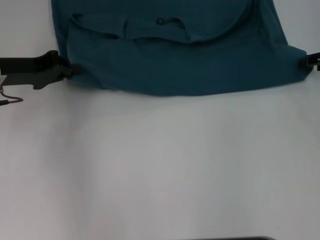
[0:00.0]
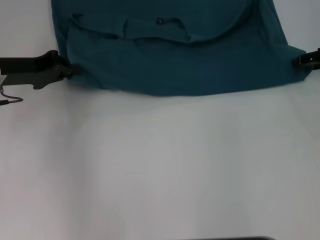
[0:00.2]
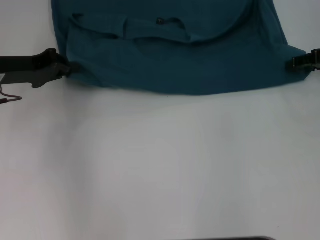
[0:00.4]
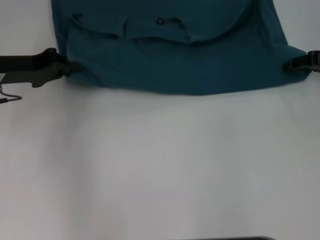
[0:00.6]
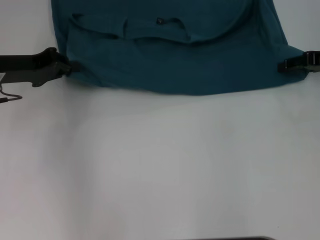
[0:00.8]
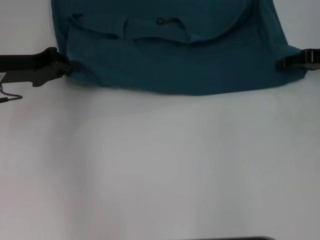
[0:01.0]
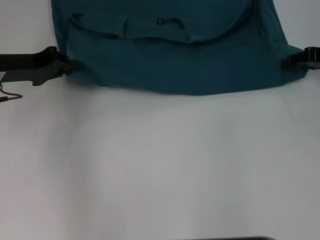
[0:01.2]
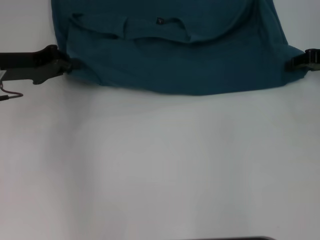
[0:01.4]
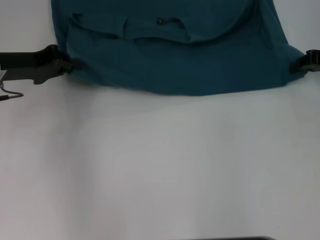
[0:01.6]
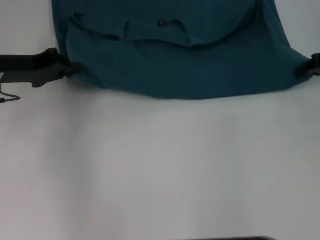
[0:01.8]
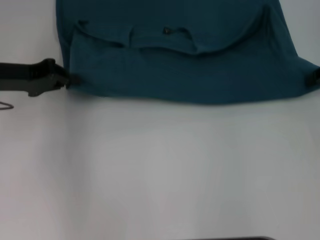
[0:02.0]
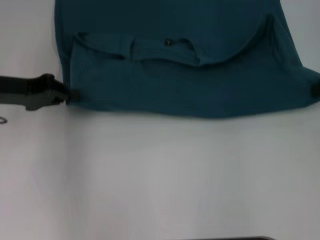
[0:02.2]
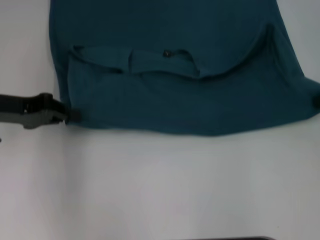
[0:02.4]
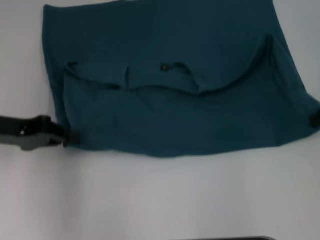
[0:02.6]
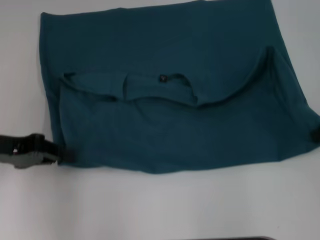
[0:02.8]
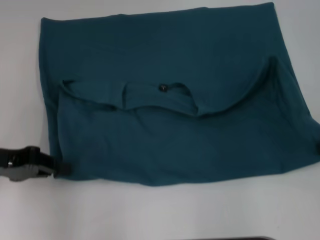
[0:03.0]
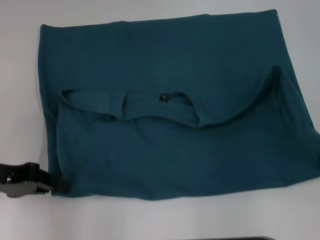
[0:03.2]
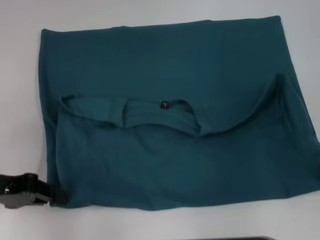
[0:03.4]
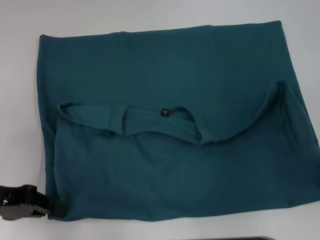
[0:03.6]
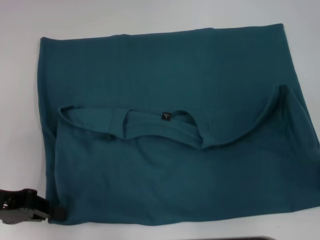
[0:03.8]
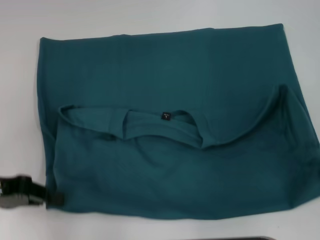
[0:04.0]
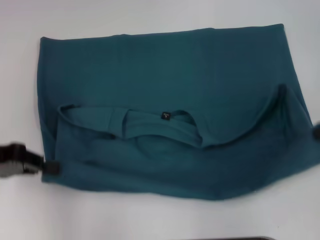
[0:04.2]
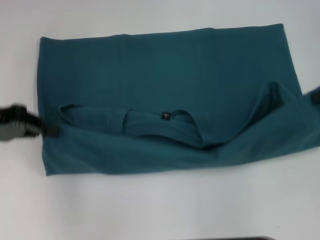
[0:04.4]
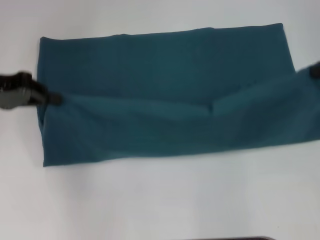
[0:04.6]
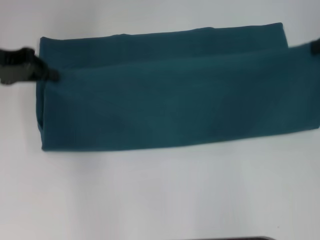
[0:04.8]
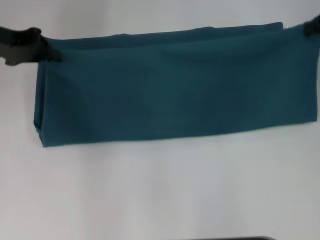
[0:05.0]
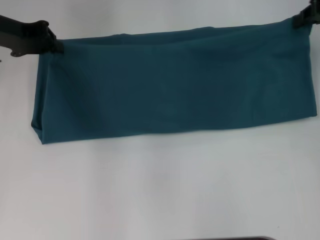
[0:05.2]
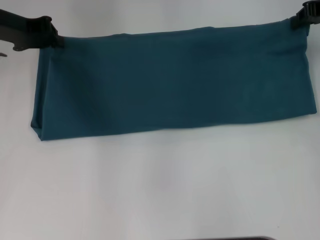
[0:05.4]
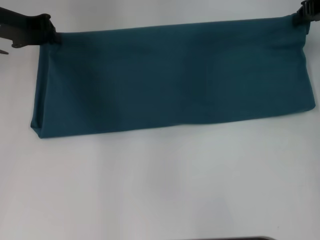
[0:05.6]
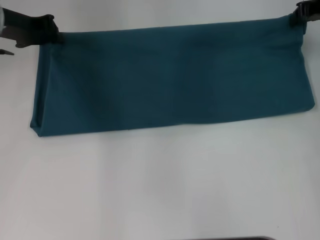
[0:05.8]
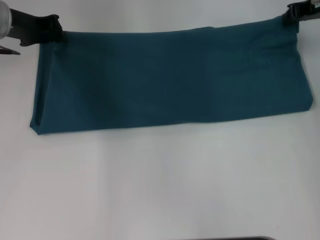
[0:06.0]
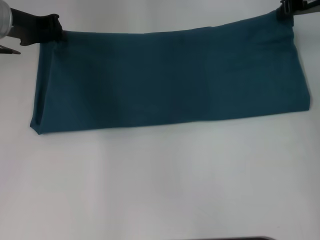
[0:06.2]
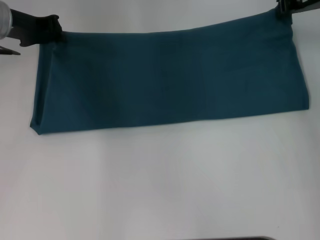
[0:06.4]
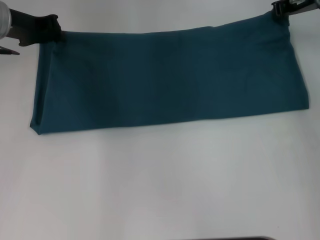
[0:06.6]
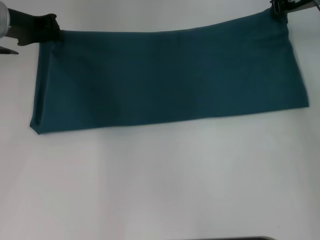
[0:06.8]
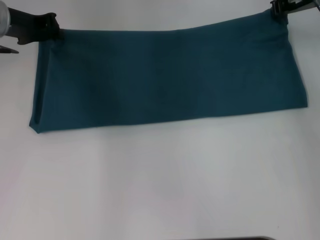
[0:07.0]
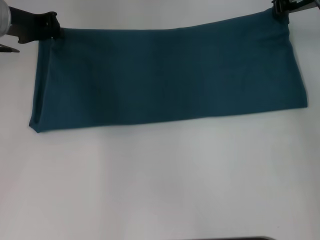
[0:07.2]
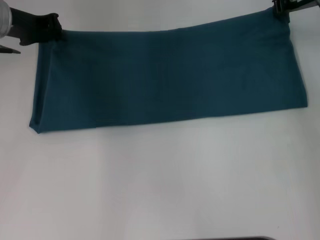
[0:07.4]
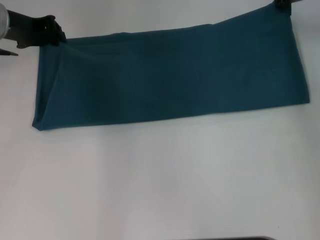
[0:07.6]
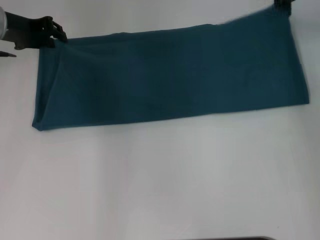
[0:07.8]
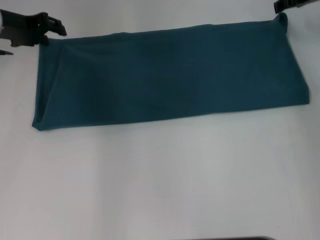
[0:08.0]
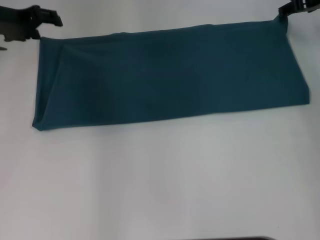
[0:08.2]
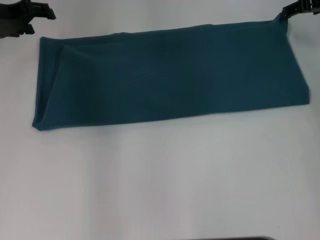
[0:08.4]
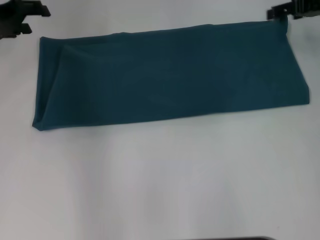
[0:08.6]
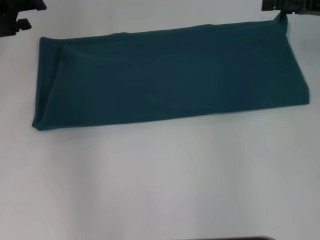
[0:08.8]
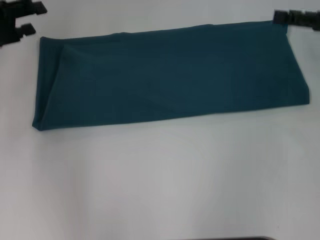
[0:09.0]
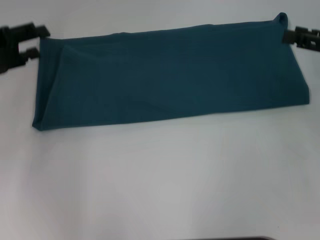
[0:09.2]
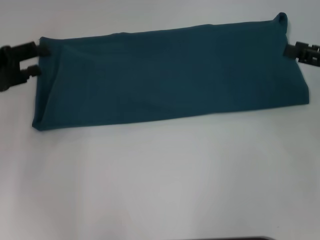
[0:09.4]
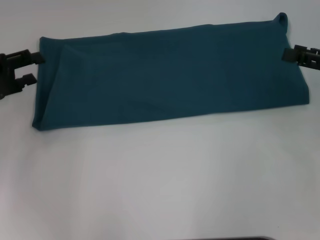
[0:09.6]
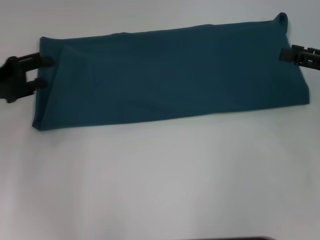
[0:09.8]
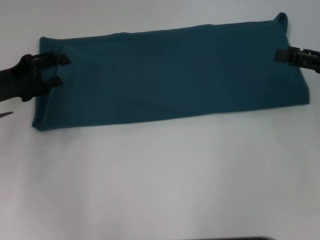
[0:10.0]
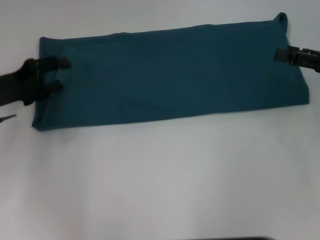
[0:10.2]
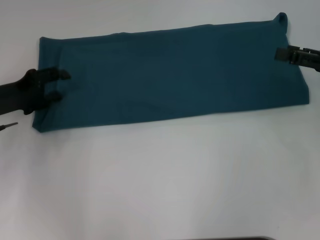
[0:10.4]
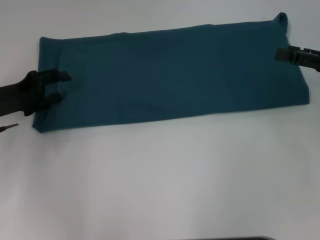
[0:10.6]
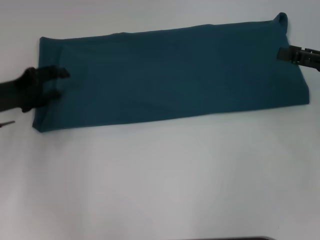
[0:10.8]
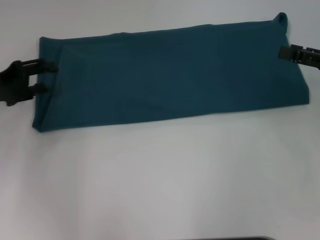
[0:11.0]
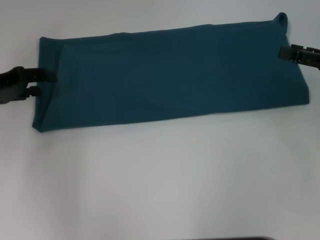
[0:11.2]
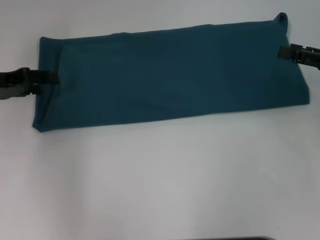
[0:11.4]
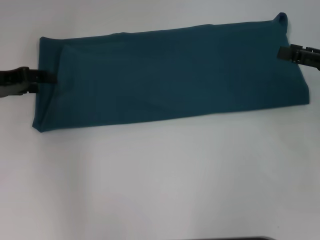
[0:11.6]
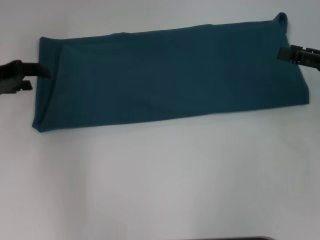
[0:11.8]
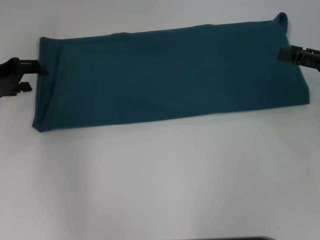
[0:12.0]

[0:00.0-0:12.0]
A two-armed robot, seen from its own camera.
Step, 0:00.0 to 0:03.8: Pull the clothes with your left hand.
Step, 0:00.0 to 0:03.8: Pull the clothes with your right hand.
Step, 0:04.0 to 0:08.6: Fold the clothes to the right.
0:00.0 to 0:01.6: There are only small adjustments of the grippers.
0:01.6 to 0:03.0: The grippers both shift backward by about 10 cm. The right gripper closes.
0:03.0 to 0:04.4: The left gripper ends up about 5 cm from where it was.
0:04.4 to 0:06.0: The right gripper is displaced forward and to the left by approximately 15 cm; the left gripper moves forward and to the right, about 15 cm.
0:06.0 to 0:07.6: There are only small adjustments of the grippers.
0:07.6 to 0:09.0: The right gripper heads backward and to the right, covering roughly 15 cm, and opens its fingers. Meanwhile the left gripper moves backward and to the left, some 10 cm, and opens up.
0:09.0 to 0:10.4: The right gripper ends up approximately 5 cm from where it was. The left gripper shifts about 10 cm downward.
0:10.4 to 0:12.0: The left gripper ends up about 5 cm from where it was.

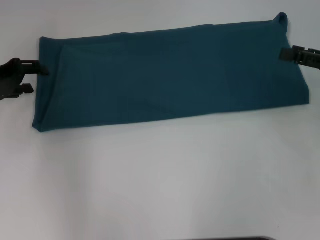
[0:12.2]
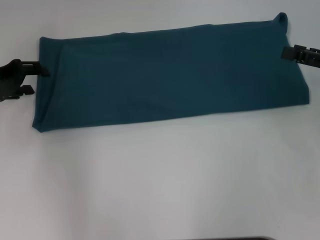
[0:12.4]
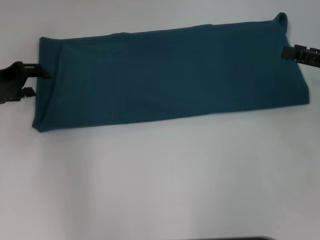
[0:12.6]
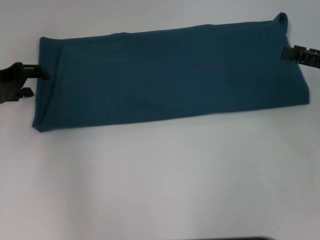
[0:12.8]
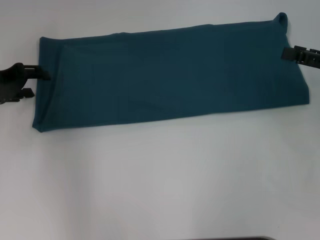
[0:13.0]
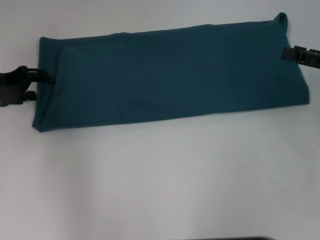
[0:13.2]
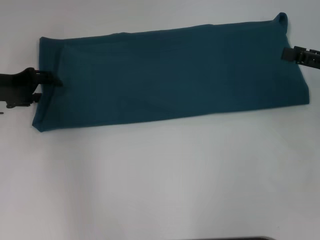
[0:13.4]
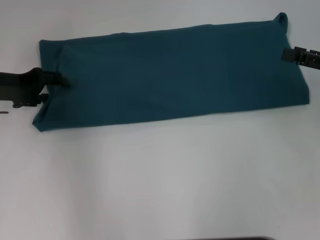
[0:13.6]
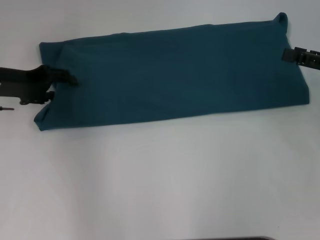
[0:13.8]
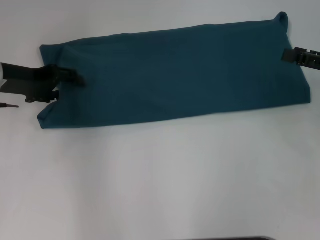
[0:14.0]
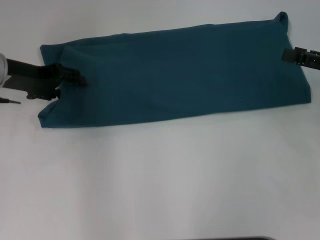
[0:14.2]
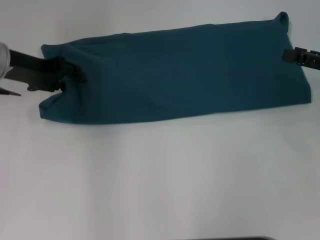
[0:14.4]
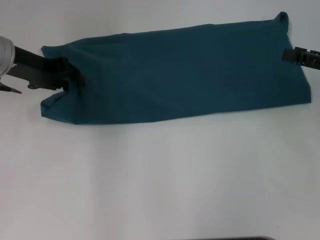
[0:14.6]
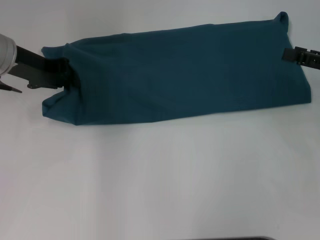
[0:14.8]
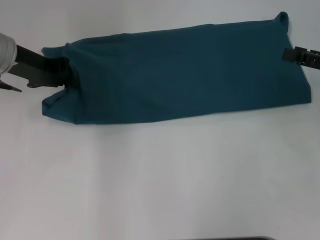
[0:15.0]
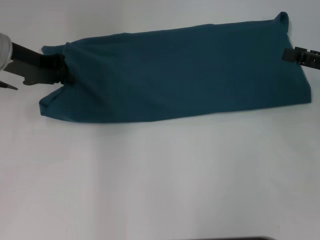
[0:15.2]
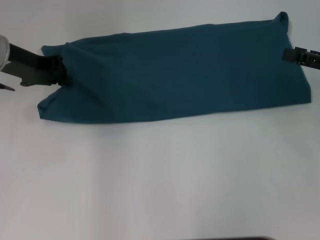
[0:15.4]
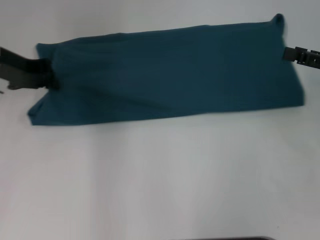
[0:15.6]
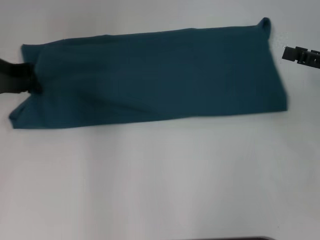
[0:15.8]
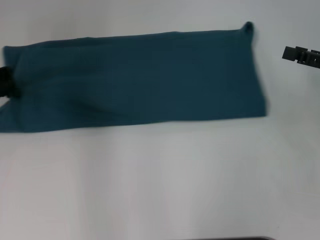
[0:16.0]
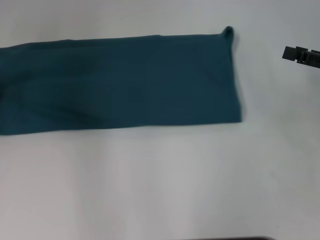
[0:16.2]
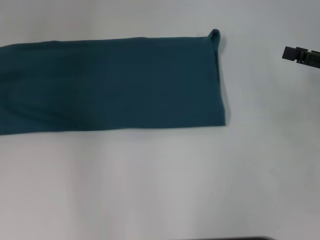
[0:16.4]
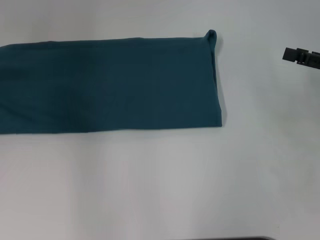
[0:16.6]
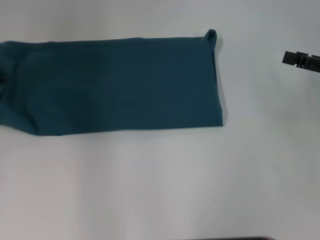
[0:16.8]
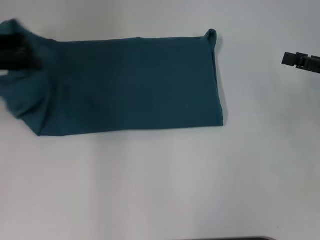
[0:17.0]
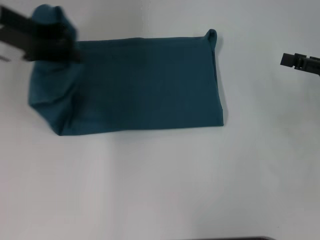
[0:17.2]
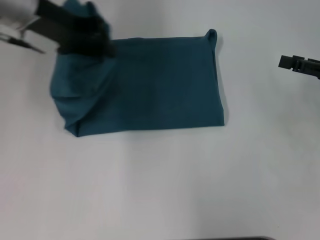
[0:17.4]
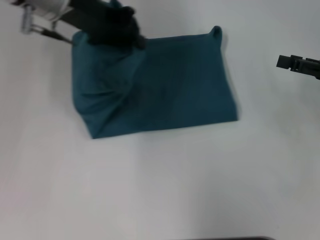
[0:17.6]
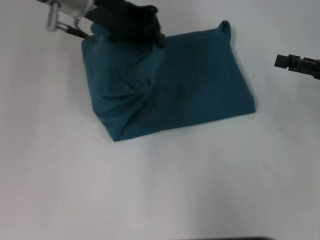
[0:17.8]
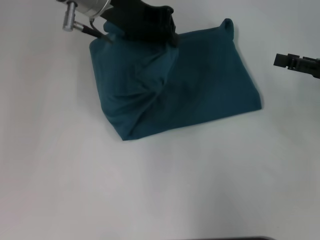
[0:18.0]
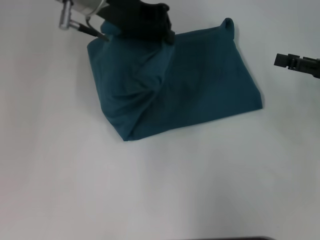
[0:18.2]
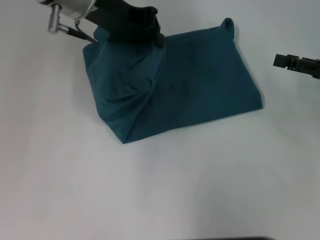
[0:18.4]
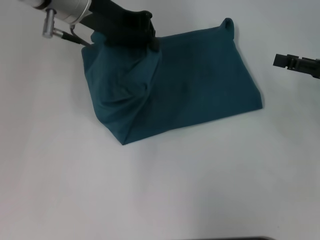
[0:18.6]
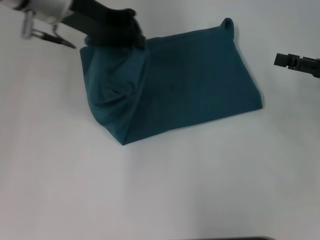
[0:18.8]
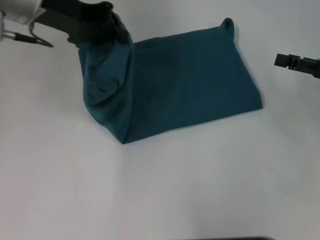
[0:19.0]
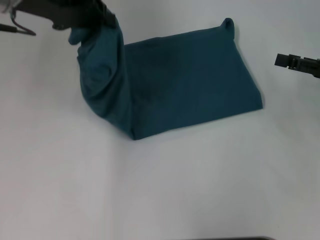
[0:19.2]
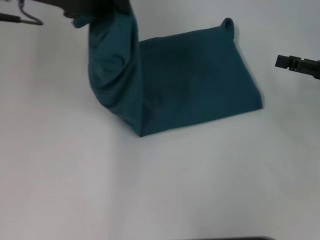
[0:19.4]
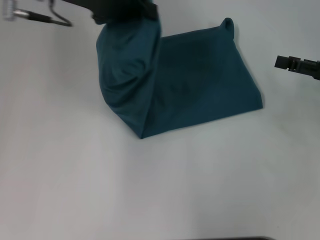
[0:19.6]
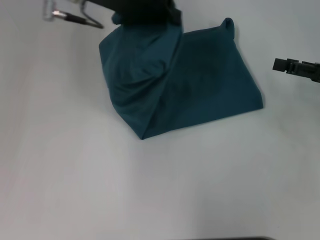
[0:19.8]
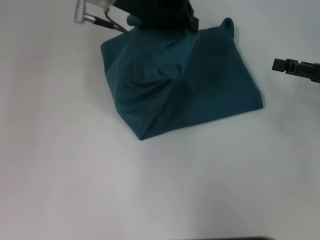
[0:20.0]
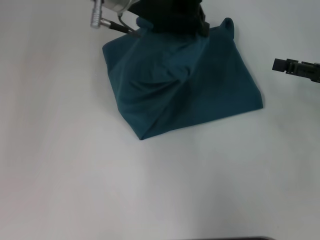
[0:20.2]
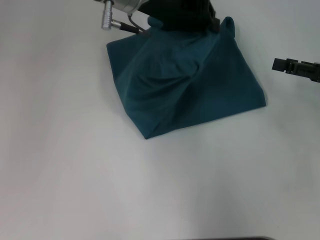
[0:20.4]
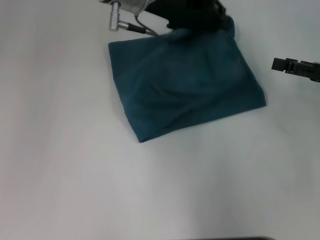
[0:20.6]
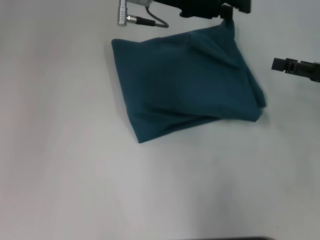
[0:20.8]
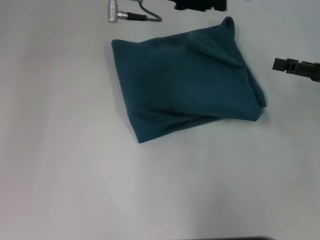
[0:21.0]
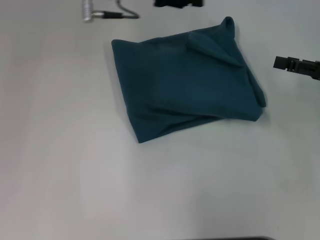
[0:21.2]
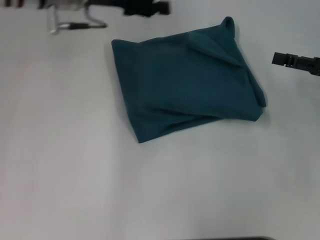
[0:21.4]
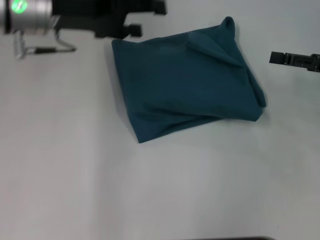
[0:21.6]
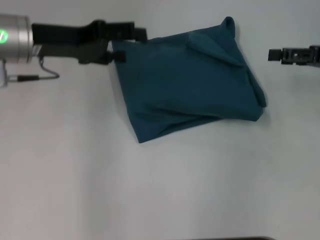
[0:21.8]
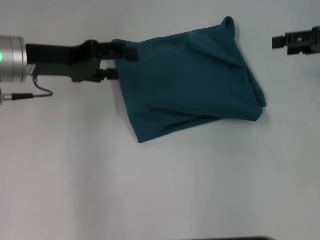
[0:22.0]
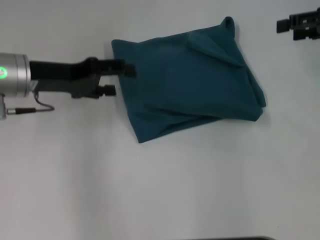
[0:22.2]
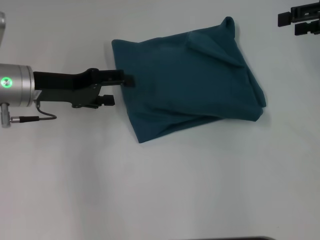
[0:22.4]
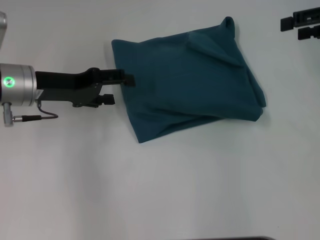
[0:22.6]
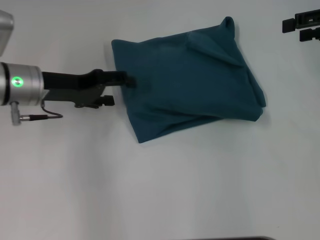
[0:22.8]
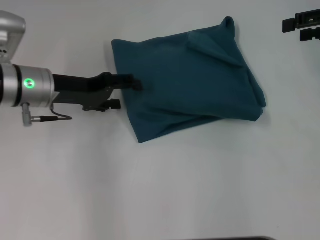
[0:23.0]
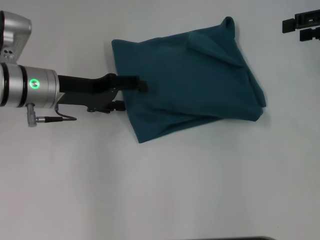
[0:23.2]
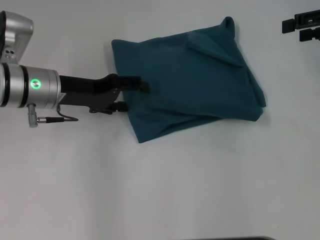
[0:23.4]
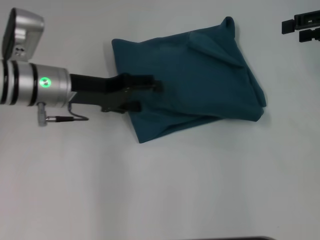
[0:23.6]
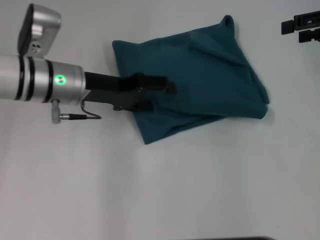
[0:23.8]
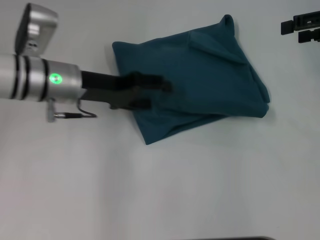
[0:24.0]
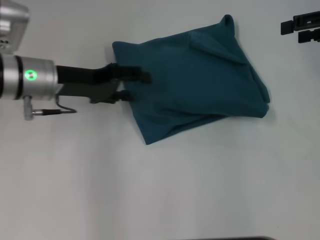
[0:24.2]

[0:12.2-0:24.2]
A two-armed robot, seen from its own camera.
Step, 0:12.2 to 0:20.6: Fold the clothes to the left.
0:12.2 to 0:13.8: The grippers stay close to where they were, moving slightly.
0:13.8 to 0:15.2: The left gripper ends up some 5 cm from where it was, and closes up.
0:15.2 to 0:16.6: The left gripper moves to the left, approximately 10 cm.
0:16.6 to 0:18.2: The left gripper moves to the right, some 25 cm.
0:18.2 to 0:19.8: The left gripper travels to the left and back again, some 10 cm each way.
0:19.8 to 0:21.2: The left gripper opens.
0:21.2 to 0:22.6: The left gripper heads to the left, downward and backward, covering approximately 20 cm, and opens. The right gripper goes some 15 cm upward and forward.
